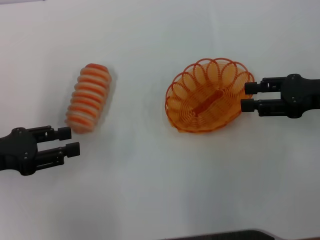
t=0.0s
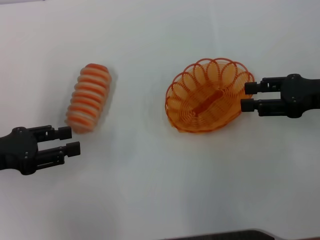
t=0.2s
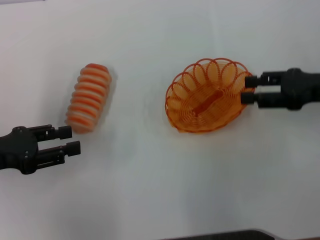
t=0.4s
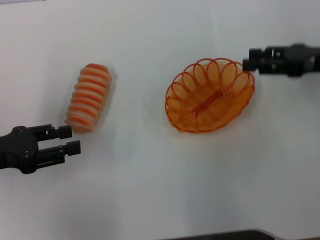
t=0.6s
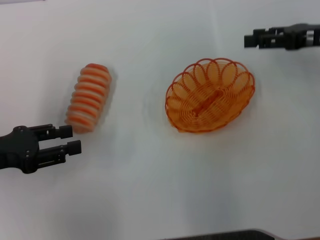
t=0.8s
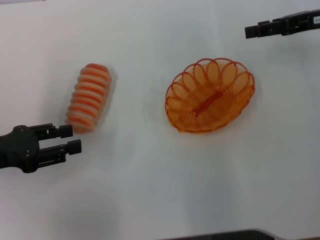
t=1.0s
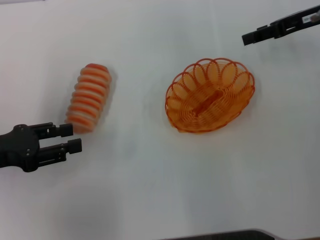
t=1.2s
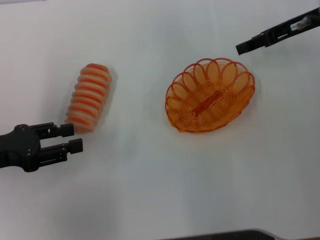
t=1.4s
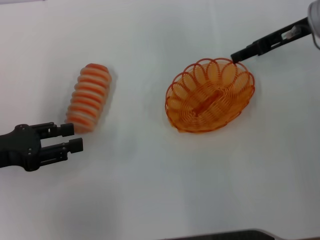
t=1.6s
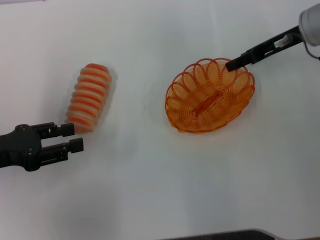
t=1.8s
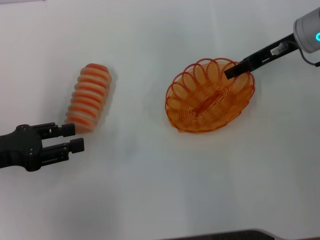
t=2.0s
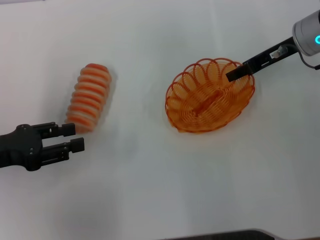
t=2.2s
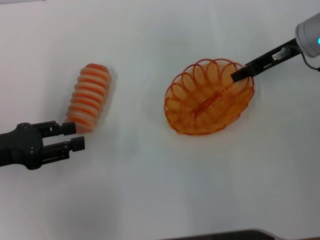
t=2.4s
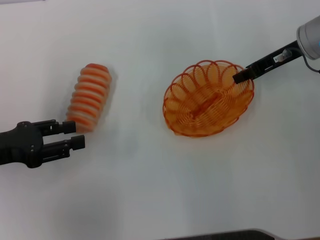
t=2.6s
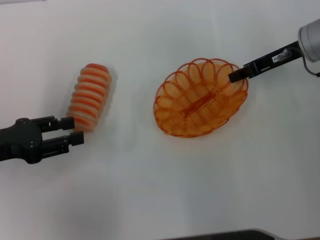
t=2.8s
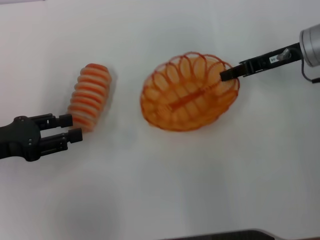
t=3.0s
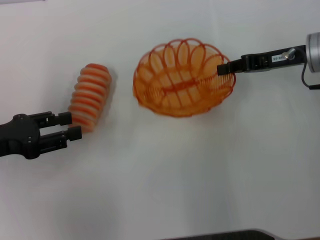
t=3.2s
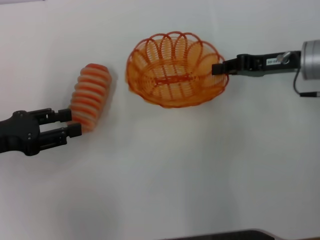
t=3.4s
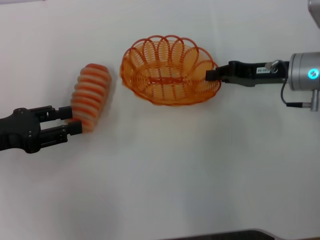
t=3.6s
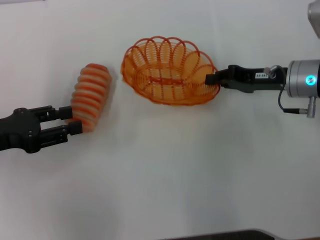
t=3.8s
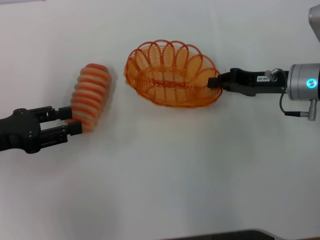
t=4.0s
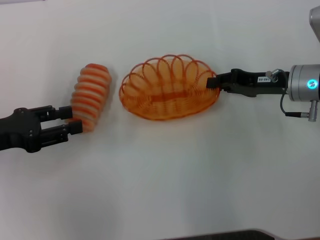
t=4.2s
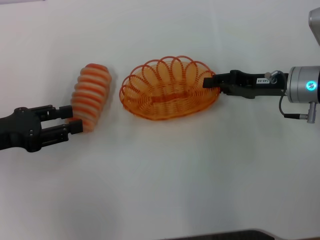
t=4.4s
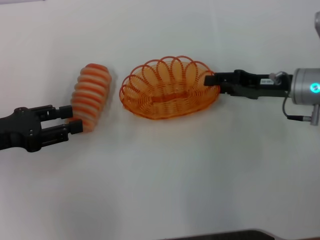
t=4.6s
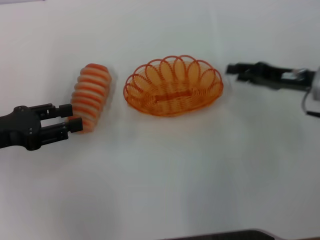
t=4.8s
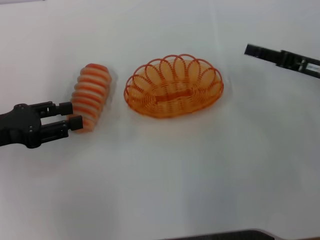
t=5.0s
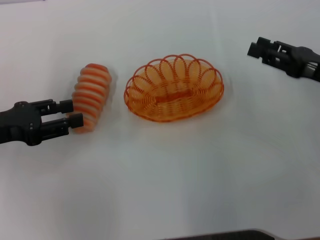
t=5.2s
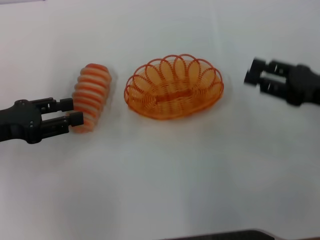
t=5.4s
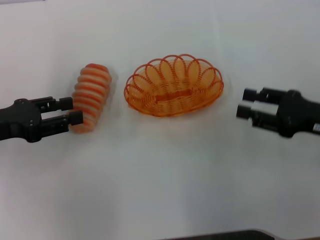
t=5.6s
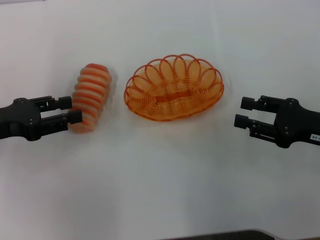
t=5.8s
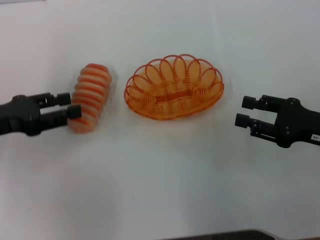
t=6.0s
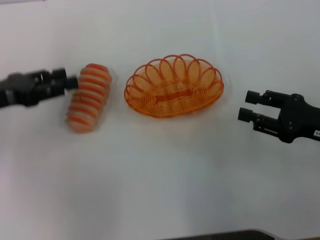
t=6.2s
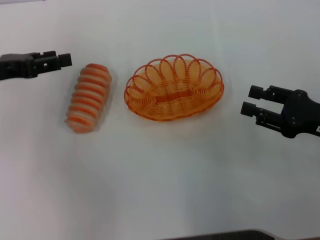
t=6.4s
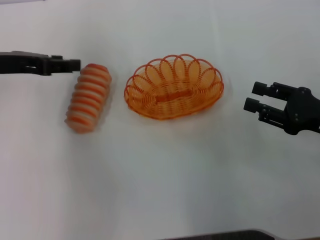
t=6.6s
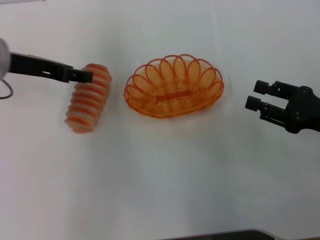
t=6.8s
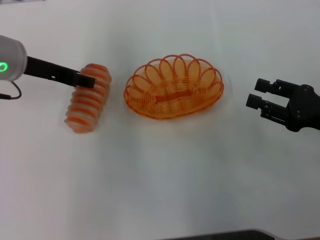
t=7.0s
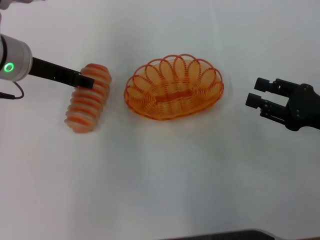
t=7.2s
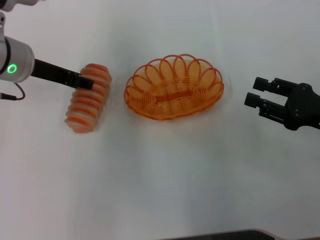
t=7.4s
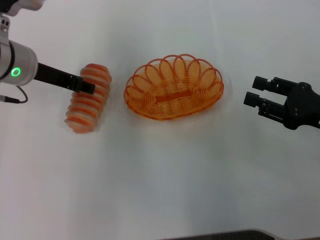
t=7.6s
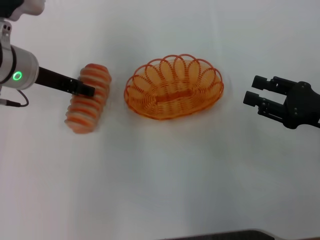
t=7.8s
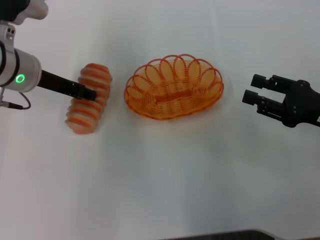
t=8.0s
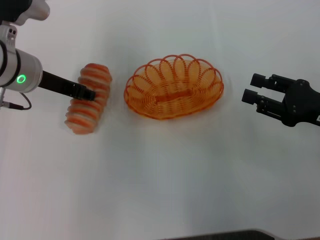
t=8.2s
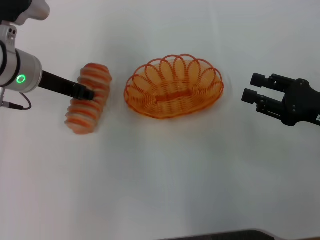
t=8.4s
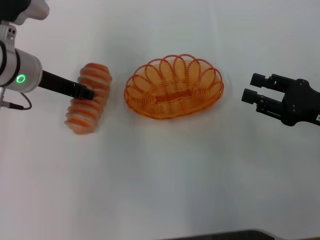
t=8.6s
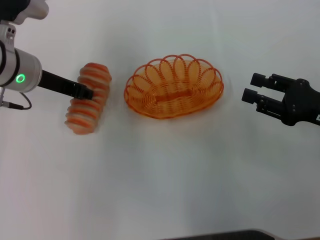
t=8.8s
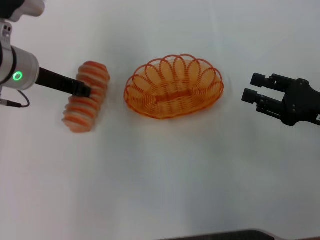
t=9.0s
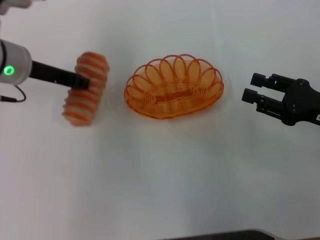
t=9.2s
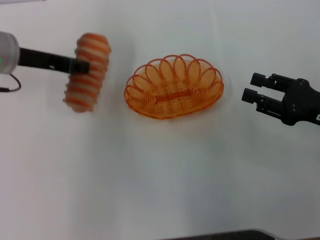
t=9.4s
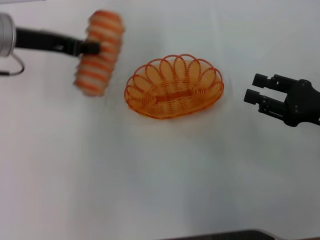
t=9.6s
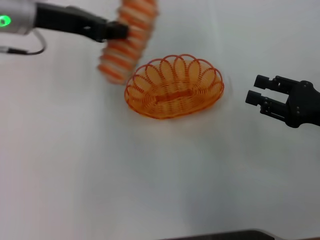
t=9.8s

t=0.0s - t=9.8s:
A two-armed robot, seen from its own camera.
Step, t=5.0s - t=9.4s: Pick up the long bread with the right gripper.
t=0.0s - t=1.4s: The right gripper shifts approximately 15 cm forward and upward.
t=1.4s - t=2.8s: The right gripper closes its fingers.
t=2.8s - t=4.2s: The right gripper travels downward and backward by roughly 10 cm.
t=4.2s - t=5.6s: The right gripper shifts roughly 10 cm backward, and opens.
t=5.6s - t=7.0s: The left gripper moves to the right, forward and upward, some 15 cm.
t=7.0s - t=8.4s: There are only small adjustments of the grippers.
t=8.4s - t=9.8s: The left gripper is displaced upward by approximately 10 cm, and closes.

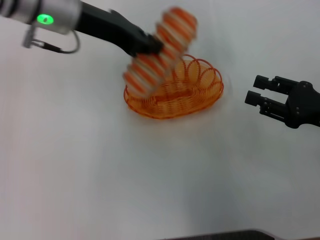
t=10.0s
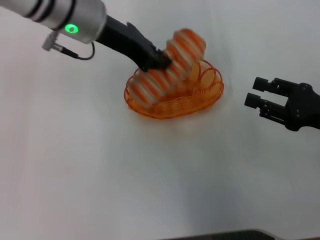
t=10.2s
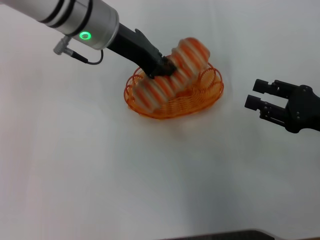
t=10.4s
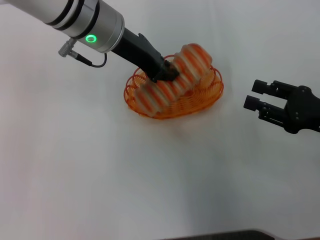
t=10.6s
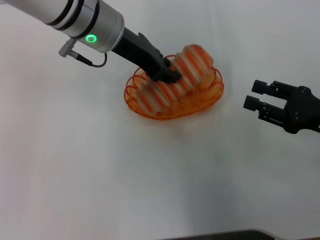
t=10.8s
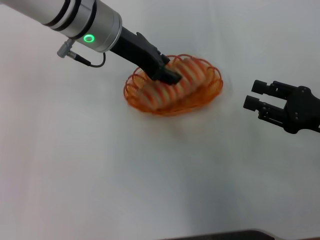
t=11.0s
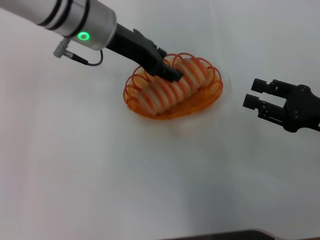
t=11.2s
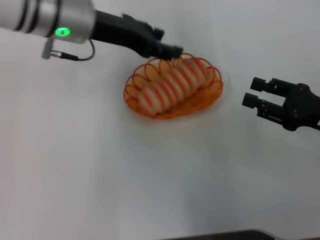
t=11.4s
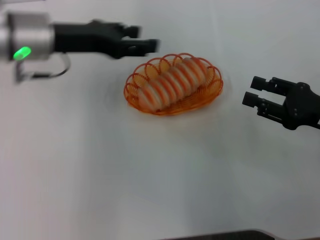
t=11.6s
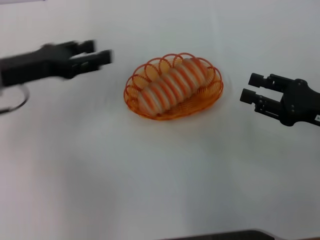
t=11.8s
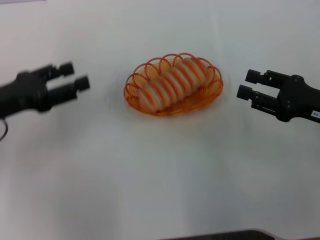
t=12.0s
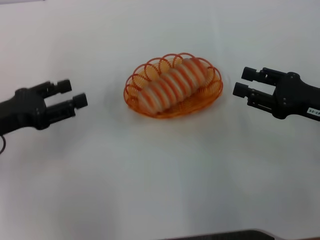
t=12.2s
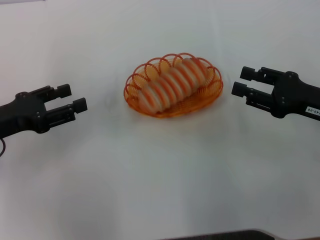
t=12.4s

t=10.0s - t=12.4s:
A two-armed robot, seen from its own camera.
t=10.0s - t=11.2s: The left gripper opens up.
t=11.2s - t=12.4s: The left gripper moves to the left, backward and downward, approximately 25 cm.

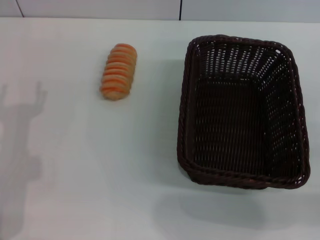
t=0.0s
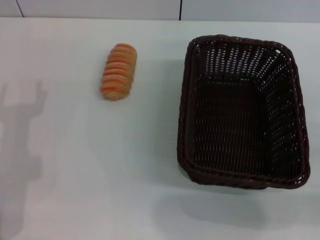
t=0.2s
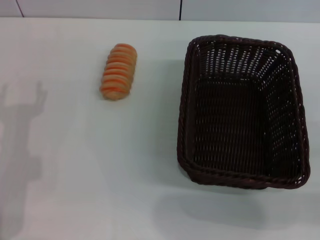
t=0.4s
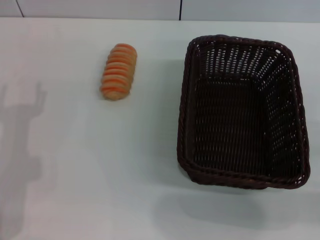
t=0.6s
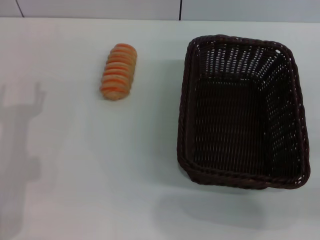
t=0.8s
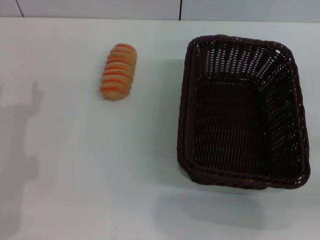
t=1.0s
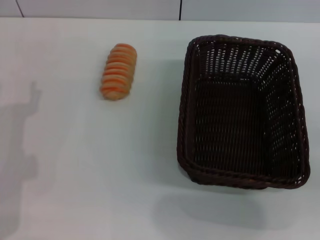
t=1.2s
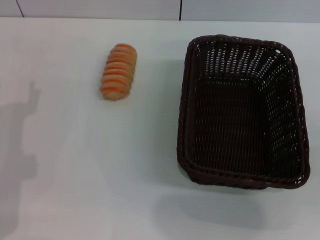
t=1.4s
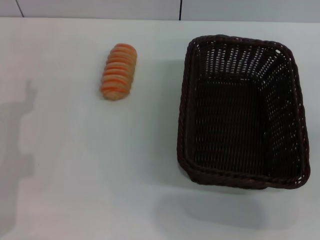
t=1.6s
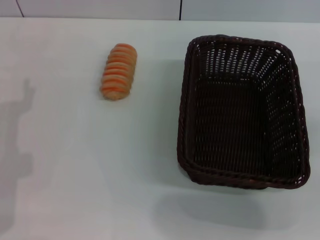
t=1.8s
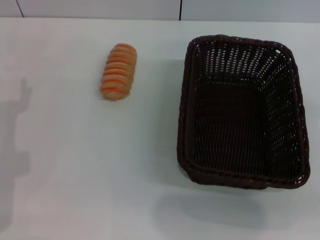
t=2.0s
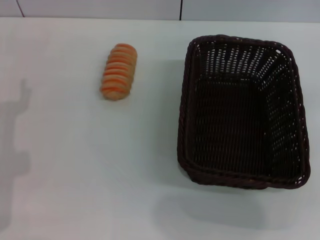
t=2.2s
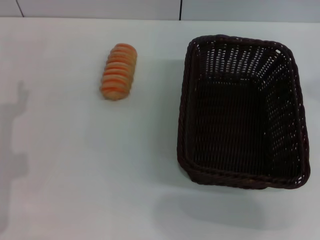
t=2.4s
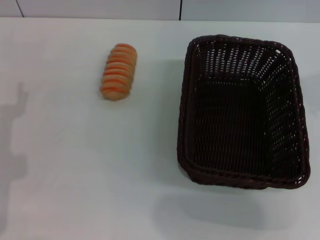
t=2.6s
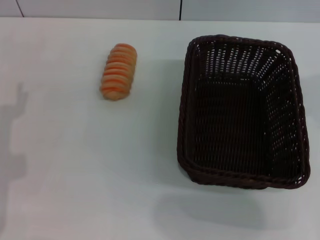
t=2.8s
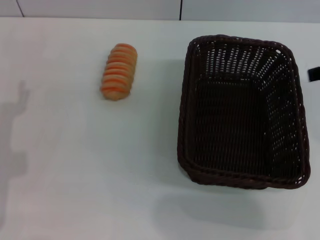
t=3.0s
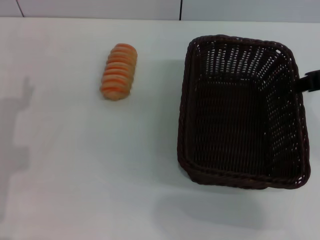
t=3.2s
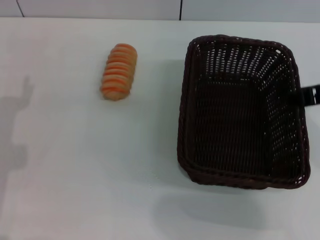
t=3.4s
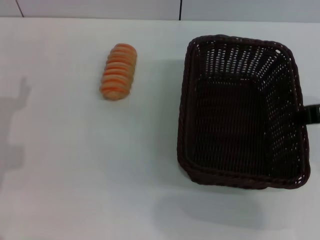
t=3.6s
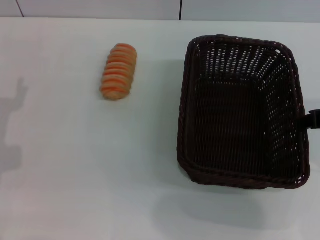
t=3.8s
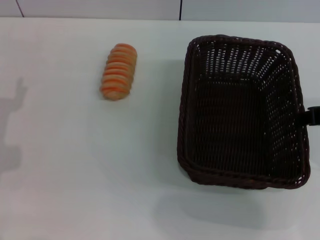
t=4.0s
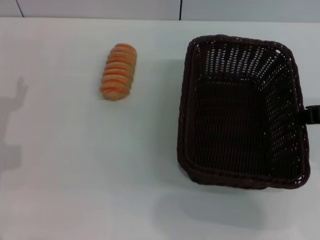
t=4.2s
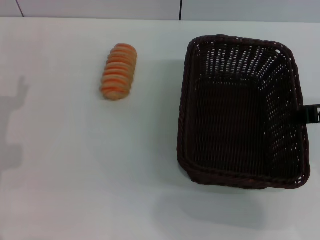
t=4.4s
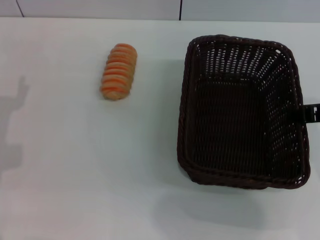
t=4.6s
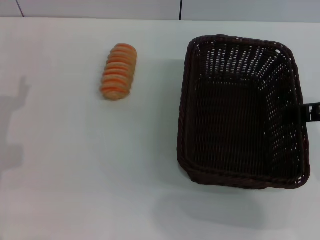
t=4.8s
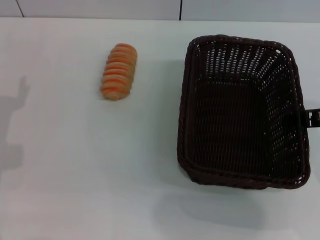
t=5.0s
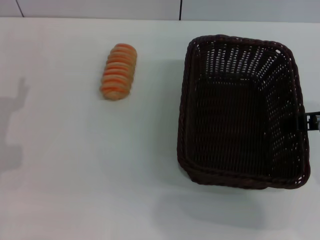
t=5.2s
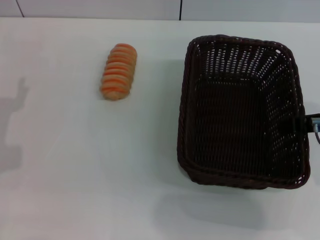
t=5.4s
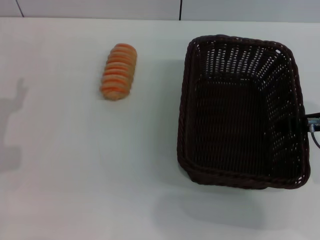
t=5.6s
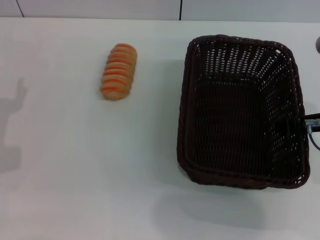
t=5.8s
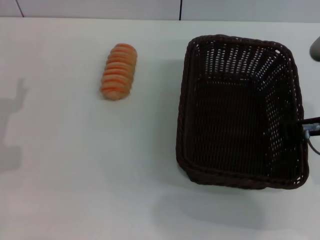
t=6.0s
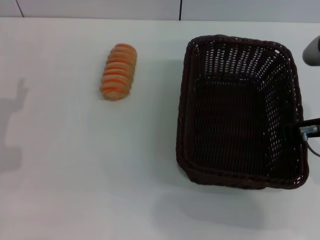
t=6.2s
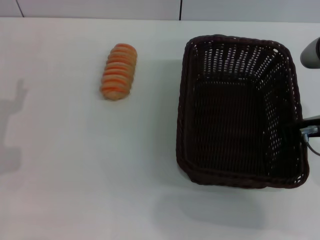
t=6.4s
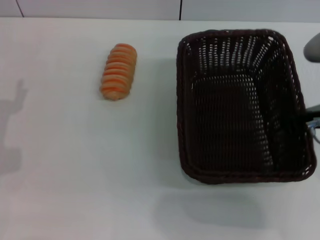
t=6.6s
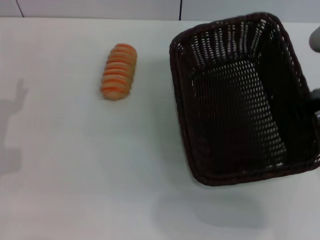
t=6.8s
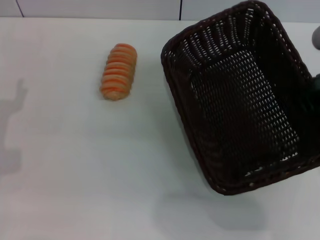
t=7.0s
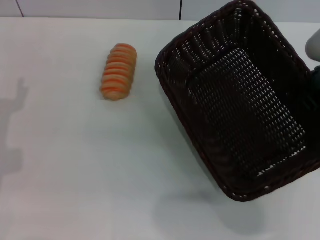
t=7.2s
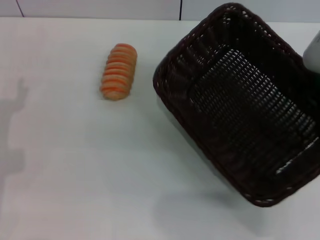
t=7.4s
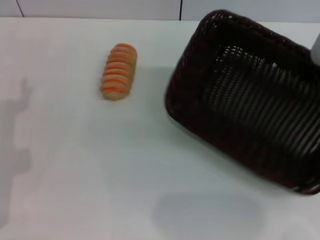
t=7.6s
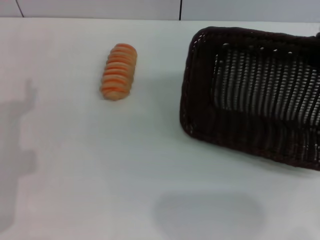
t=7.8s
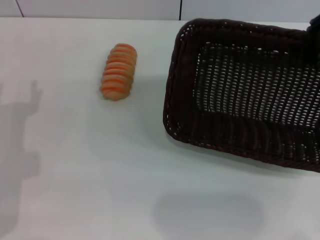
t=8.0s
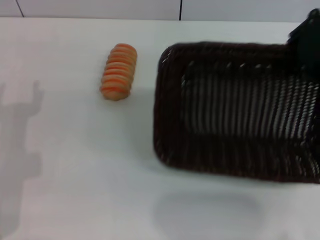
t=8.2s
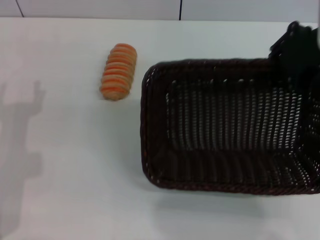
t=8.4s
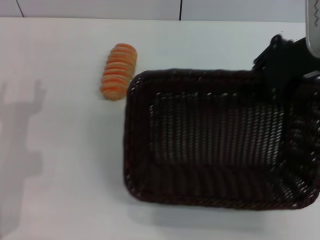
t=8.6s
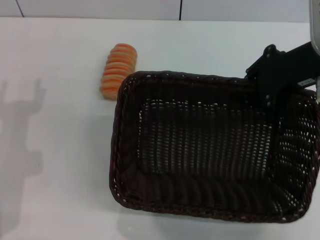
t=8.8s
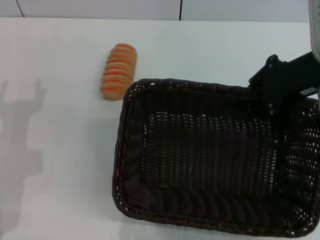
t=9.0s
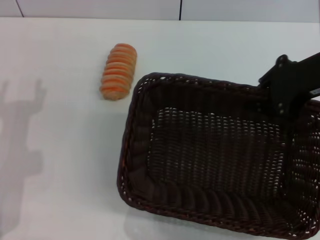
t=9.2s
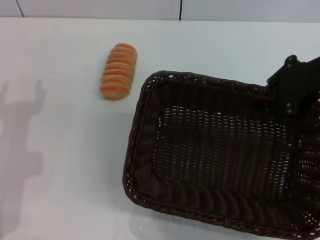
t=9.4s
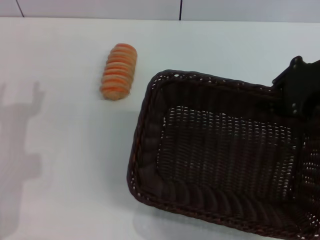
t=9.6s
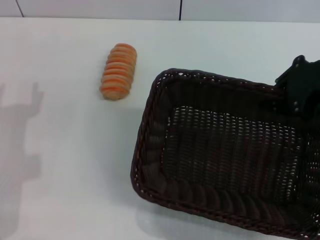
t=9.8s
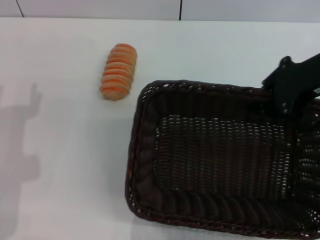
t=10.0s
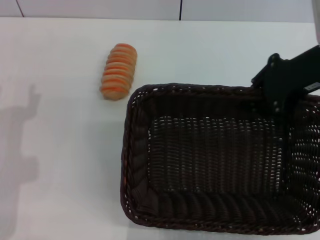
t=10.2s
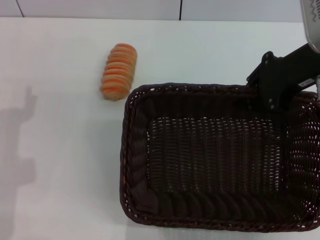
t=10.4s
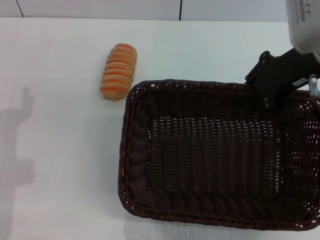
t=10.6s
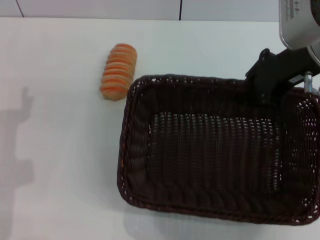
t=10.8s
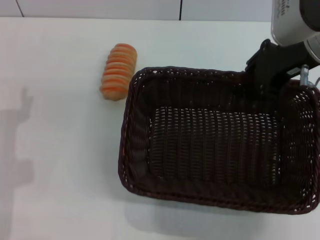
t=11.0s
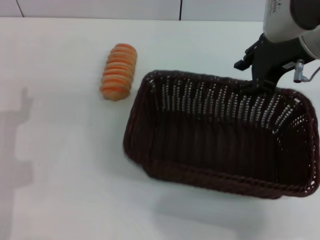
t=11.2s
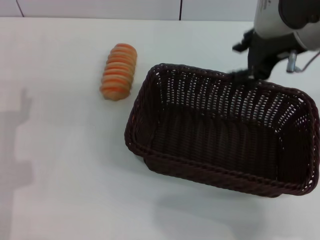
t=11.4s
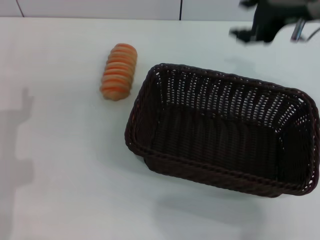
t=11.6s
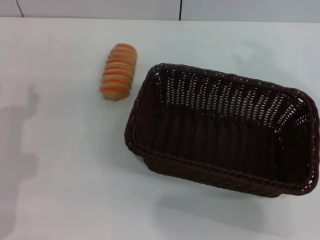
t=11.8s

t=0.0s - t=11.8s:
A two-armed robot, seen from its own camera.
Step, t=0.0s - t=7.2s: Pick up the dark basket with the right gripper.
Step, t=7.4s - t=11.4s: Place the dark basket in the center of view with the right gripper.
t=3.0s - t=4.4s: The right gripper changes place by roughly 5 cm.
t=4.4s - t=6.0s: The right gripper closes its fingers.
t=6.0s - t=7.4s: The right gripper travels upward by approximately 5 cm, and closes up.
t=8.8s - t=10.4s: The grippers move only a little.
t=10.4s - t=11.8s: The right gripper moves upward, roughly 5 cm, and opens.
